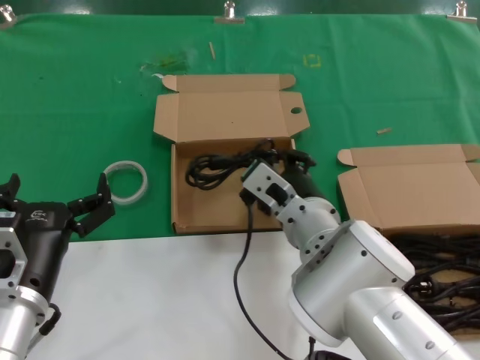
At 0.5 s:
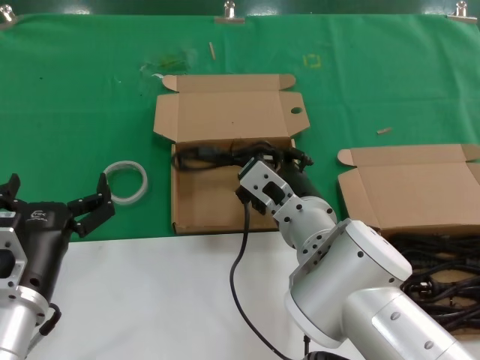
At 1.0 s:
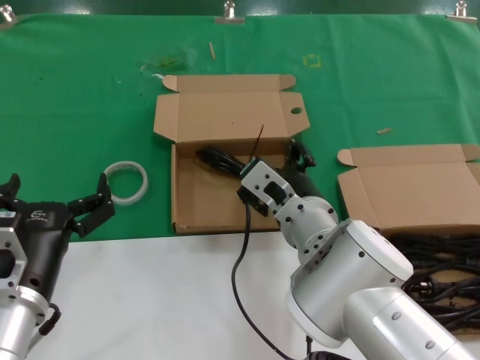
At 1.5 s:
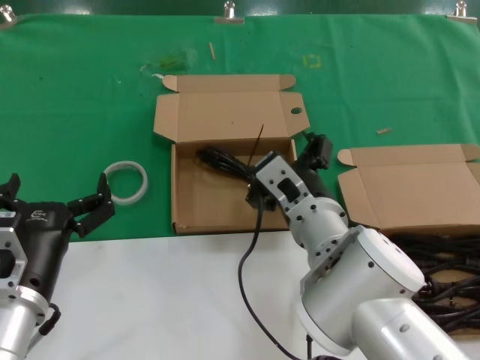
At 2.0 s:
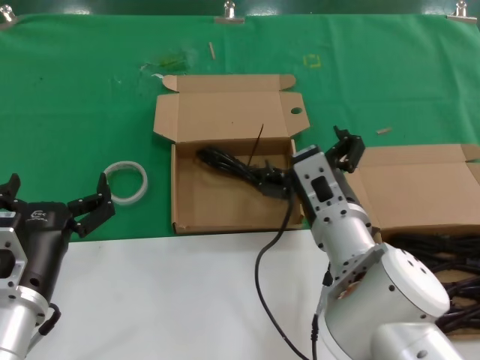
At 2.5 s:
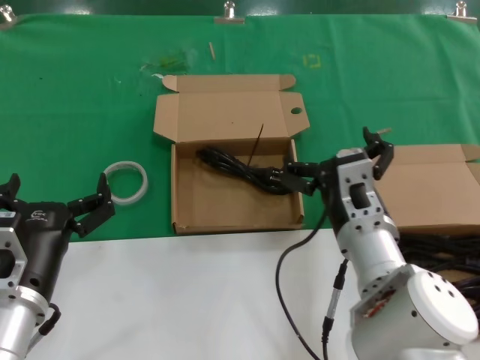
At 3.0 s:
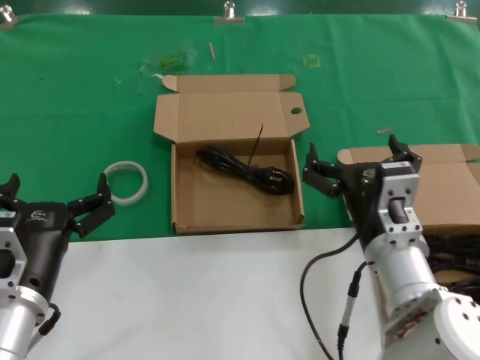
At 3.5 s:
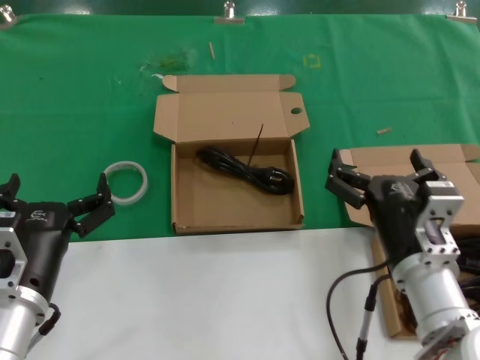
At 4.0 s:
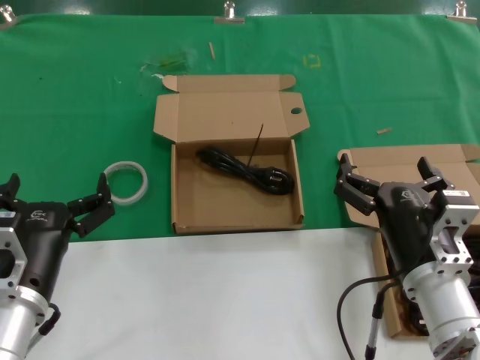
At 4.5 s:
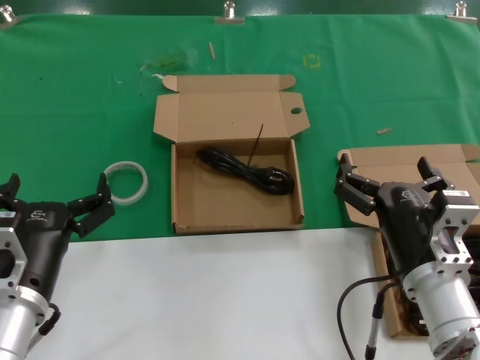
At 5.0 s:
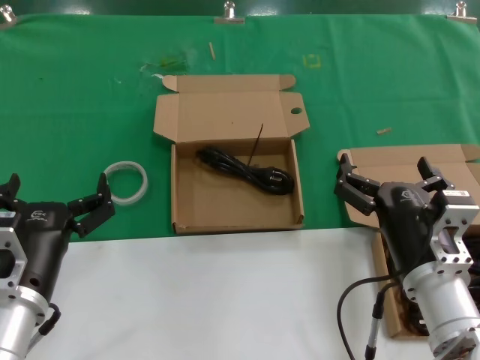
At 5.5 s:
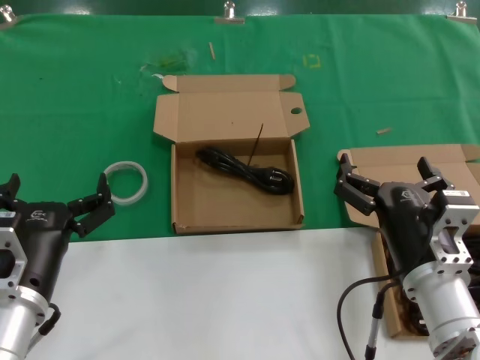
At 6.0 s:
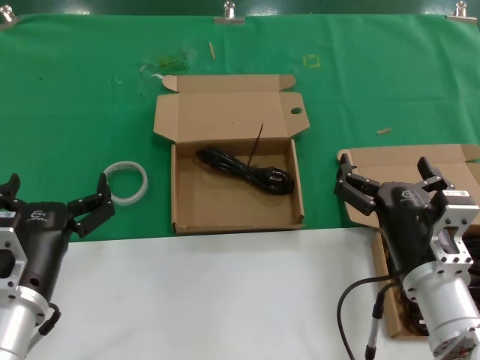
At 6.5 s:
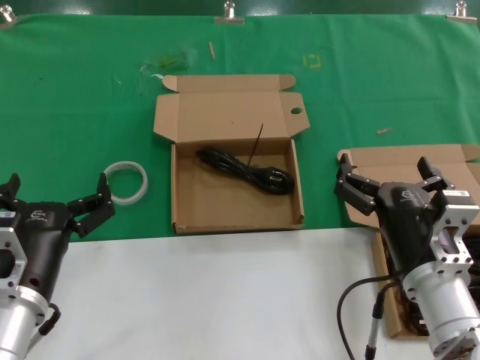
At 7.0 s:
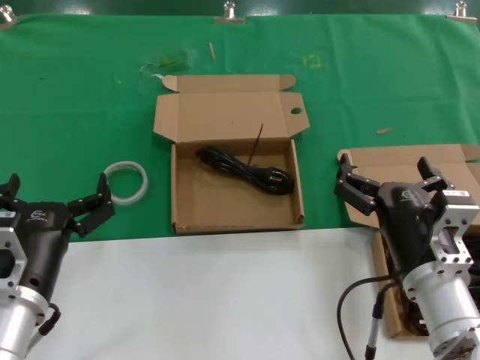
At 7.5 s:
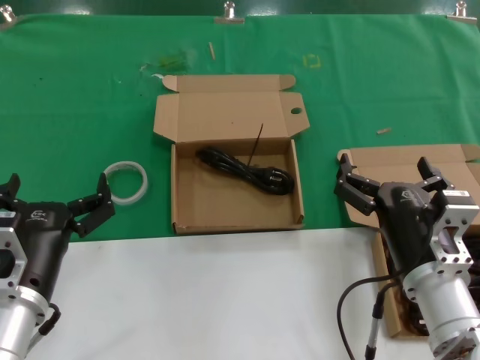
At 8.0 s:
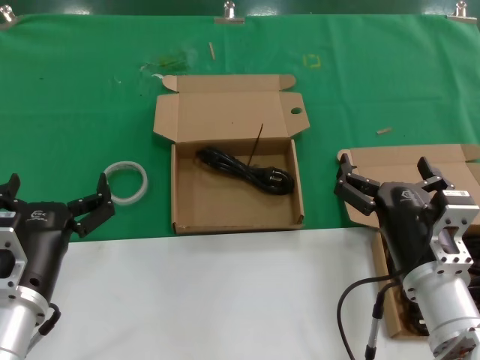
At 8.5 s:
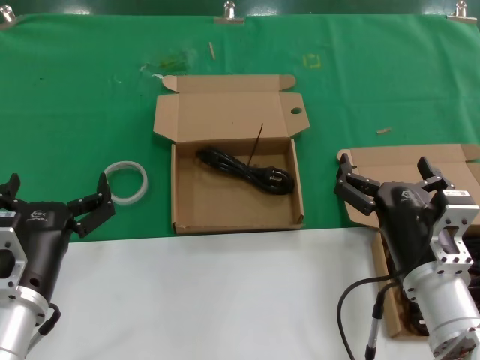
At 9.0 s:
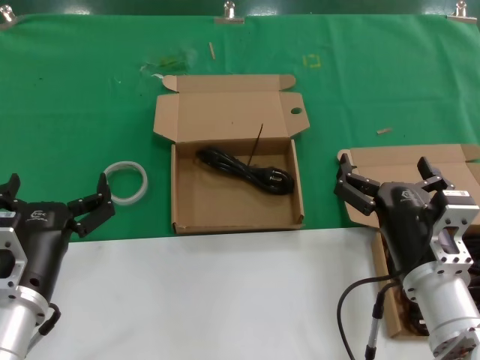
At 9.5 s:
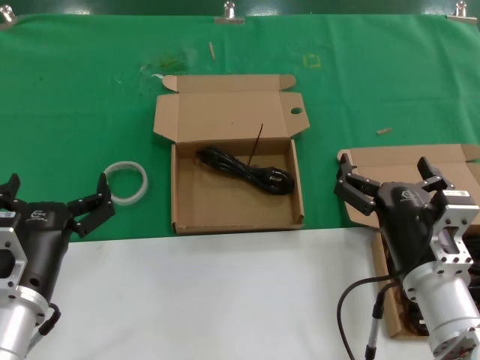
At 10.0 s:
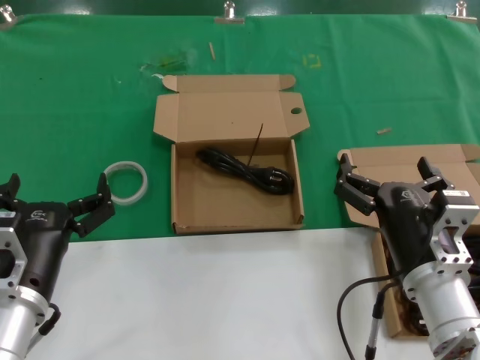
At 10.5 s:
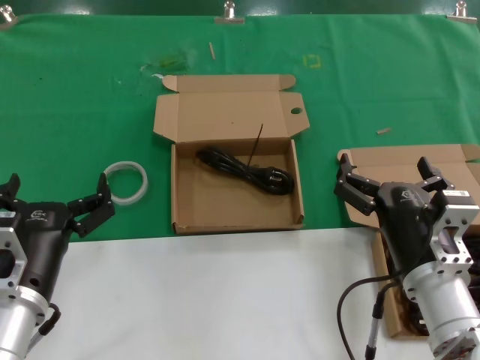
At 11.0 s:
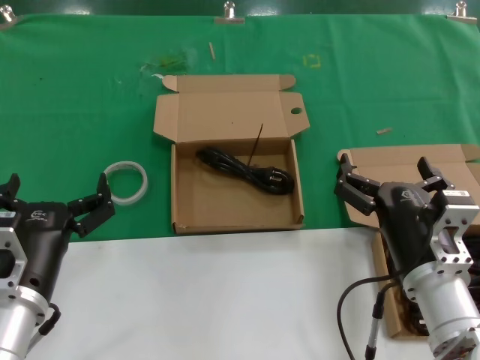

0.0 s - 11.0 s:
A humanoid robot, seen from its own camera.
Task of the whole recording: take the parts from the box containing them and put them into an empty box.
2.0 s - 3.5 s: The right hand is displaced to the right and backward by roughly 10 cm.
3.5 s - 5.5 s: The hands move only a little.
5.5 s - 11.0 s: Both hands stay put.
